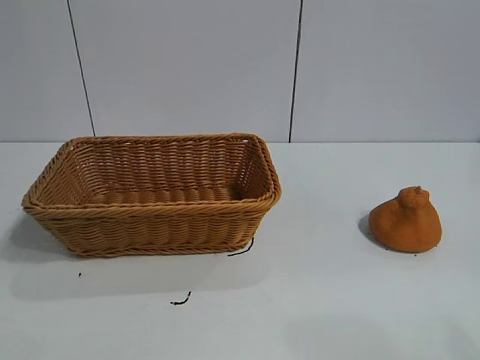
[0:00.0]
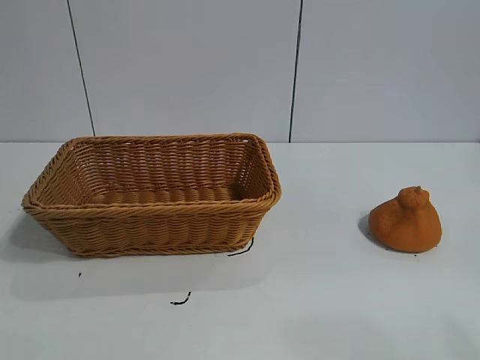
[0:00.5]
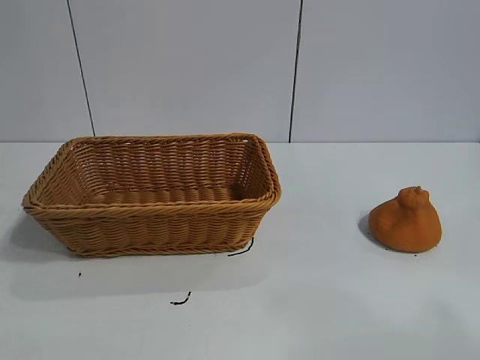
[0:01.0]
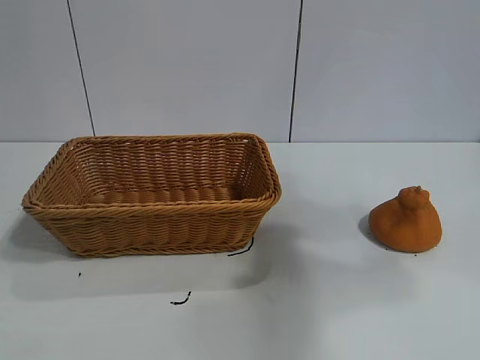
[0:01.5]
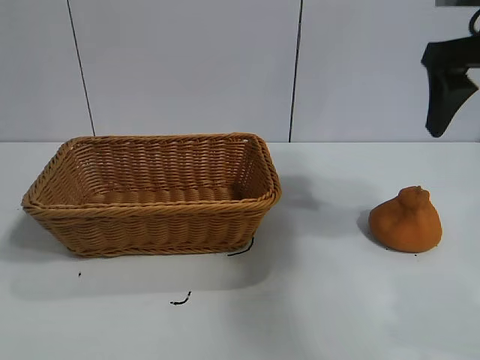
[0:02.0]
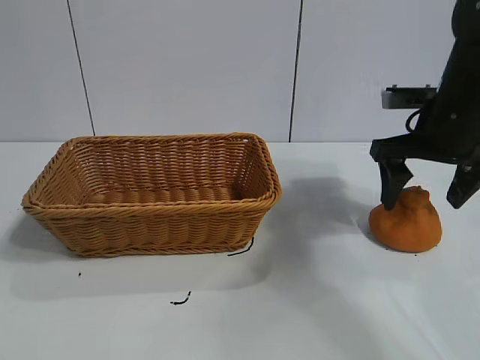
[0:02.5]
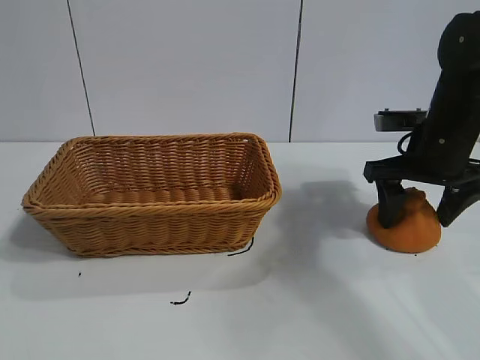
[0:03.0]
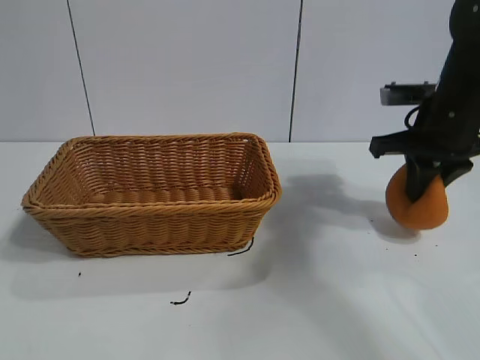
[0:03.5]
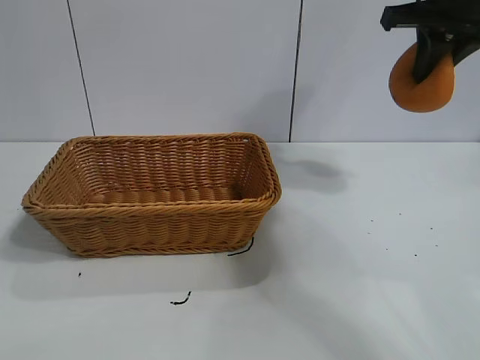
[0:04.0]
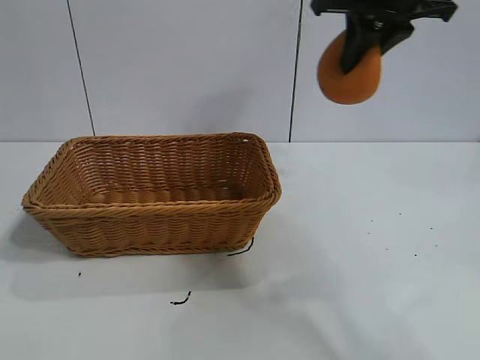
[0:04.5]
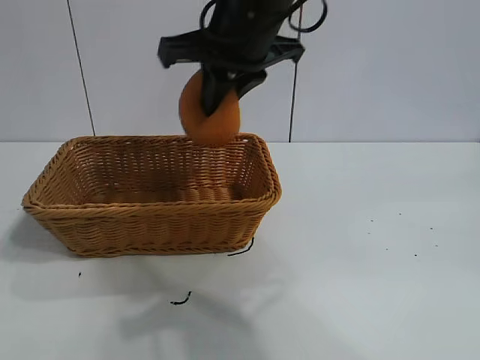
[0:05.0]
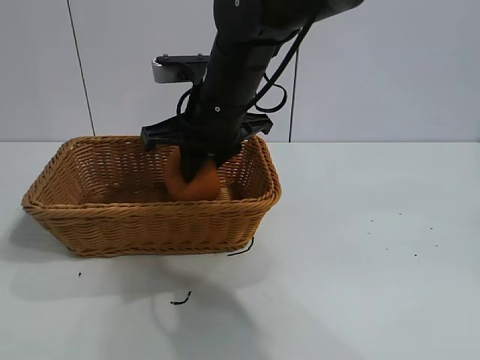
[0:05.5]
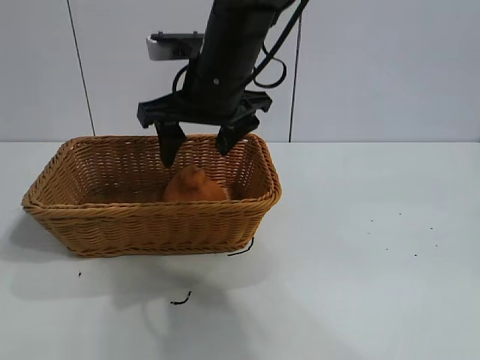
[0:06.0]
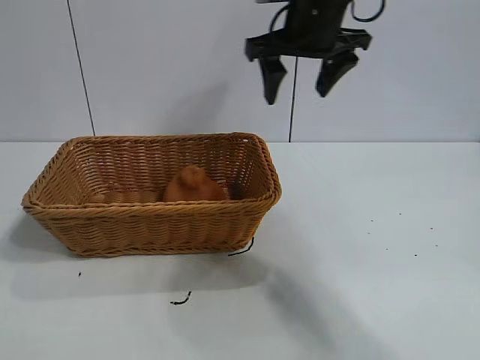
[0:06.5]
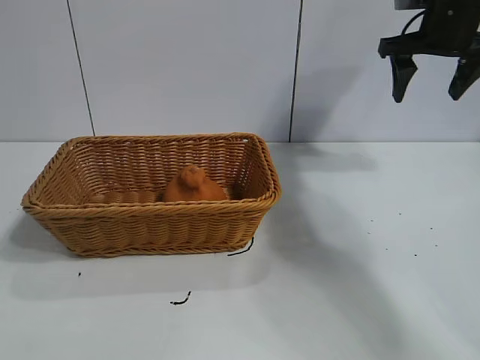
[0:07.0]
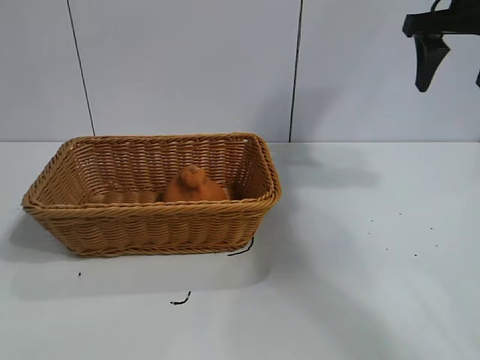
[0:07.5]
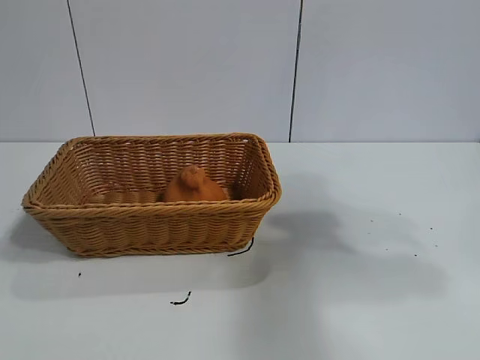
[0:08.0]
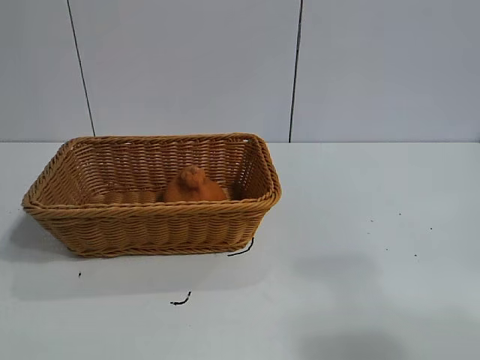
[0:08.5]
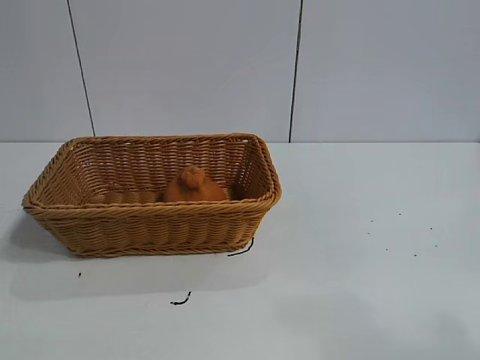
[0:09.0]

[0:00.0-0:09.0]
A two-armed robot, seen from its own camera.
Task of the whole recording: pick up the orange and put it into the basket.
Step, 0:01.0 to 0:03.0: Grasp the orange with right gripper.
Step, 0:04.0 to 0:05.5: Place the orange in the basket with right gripper.

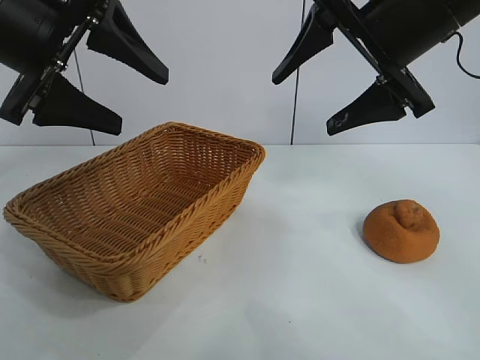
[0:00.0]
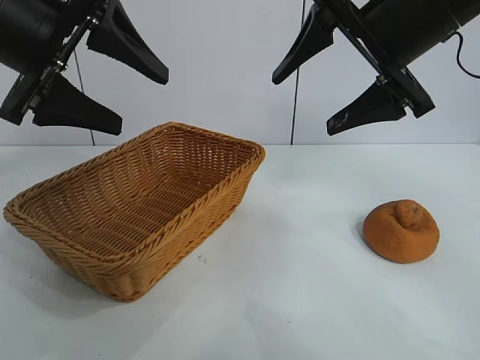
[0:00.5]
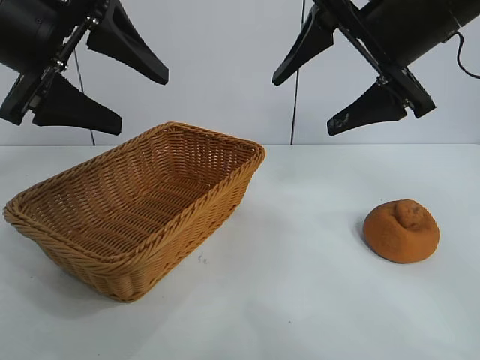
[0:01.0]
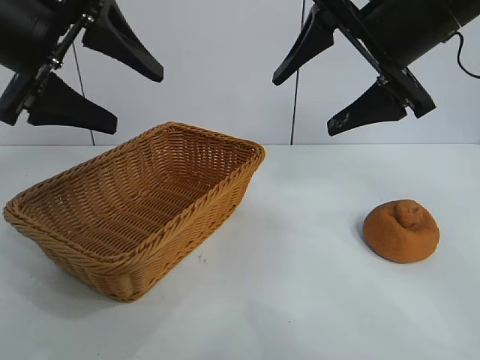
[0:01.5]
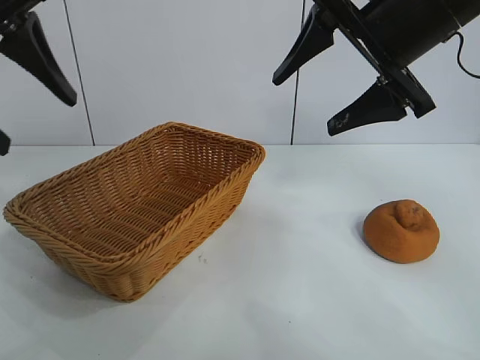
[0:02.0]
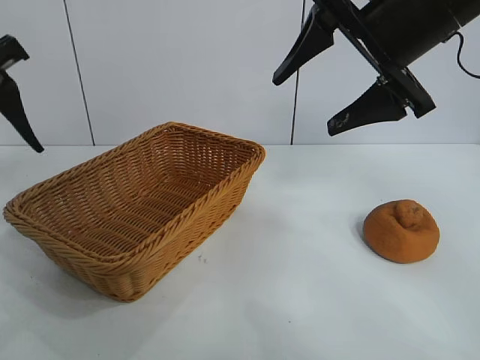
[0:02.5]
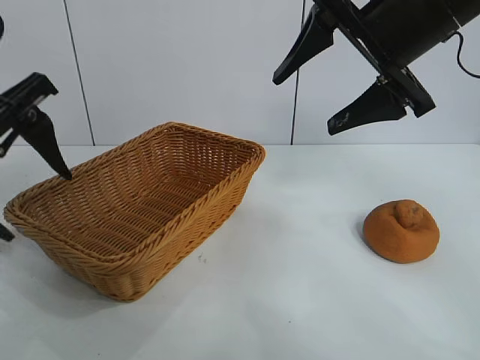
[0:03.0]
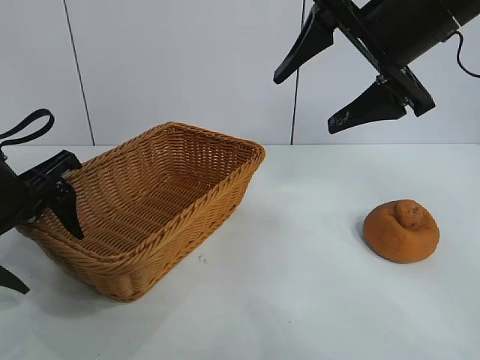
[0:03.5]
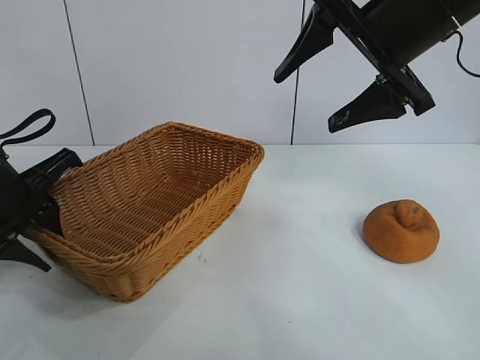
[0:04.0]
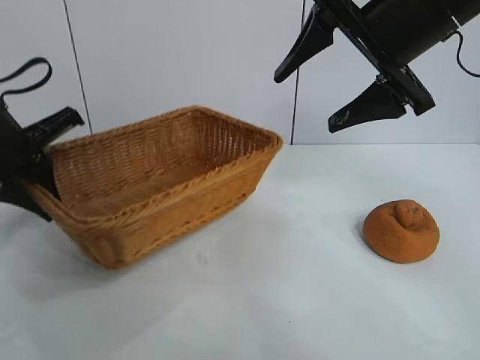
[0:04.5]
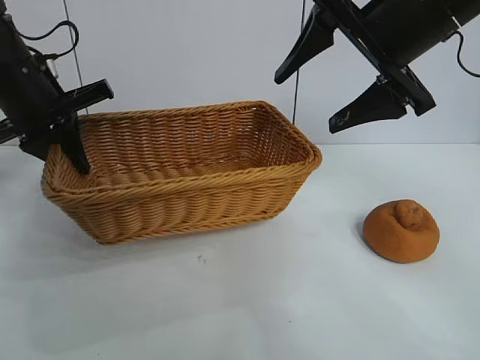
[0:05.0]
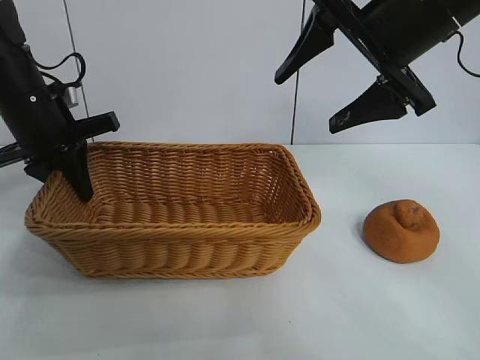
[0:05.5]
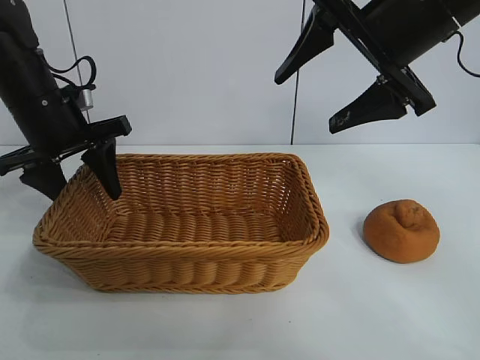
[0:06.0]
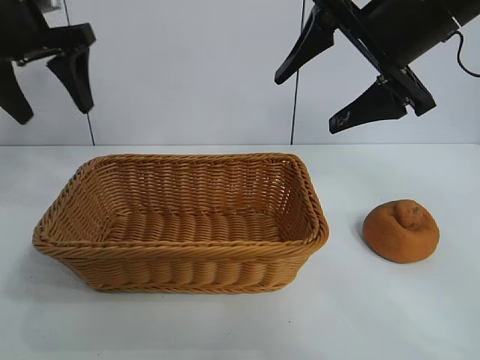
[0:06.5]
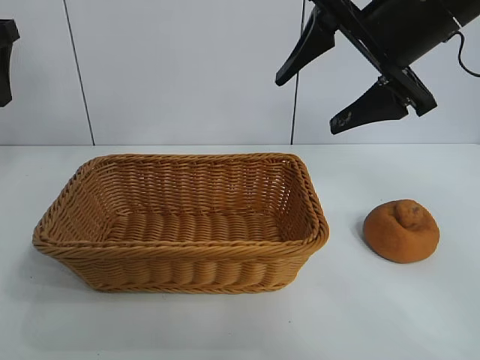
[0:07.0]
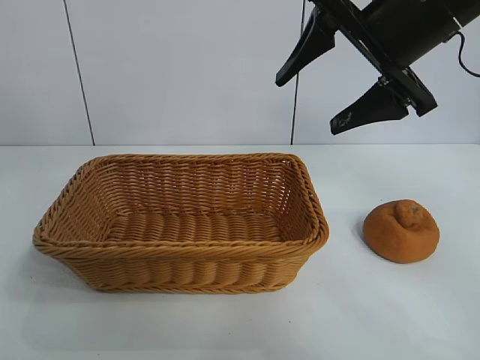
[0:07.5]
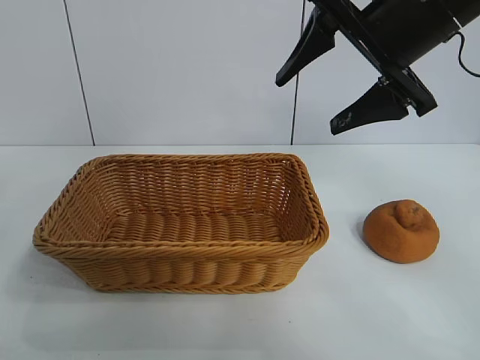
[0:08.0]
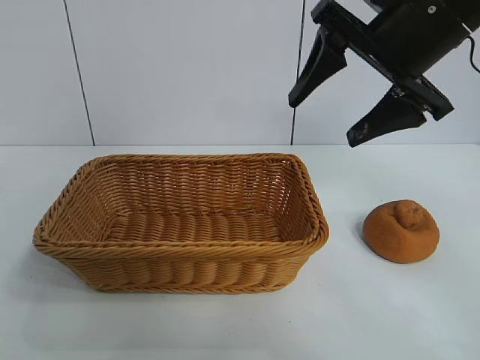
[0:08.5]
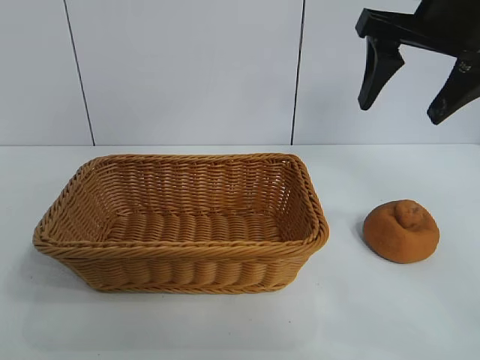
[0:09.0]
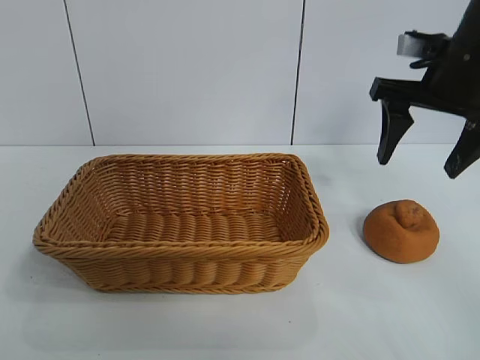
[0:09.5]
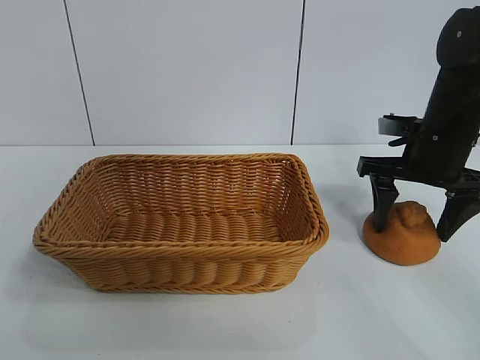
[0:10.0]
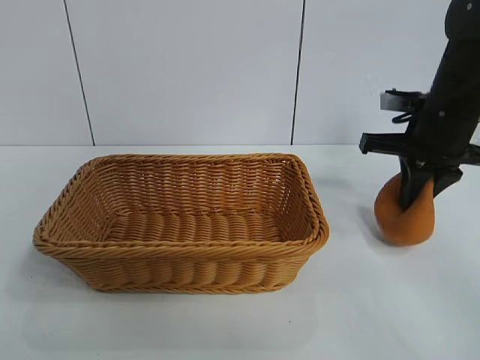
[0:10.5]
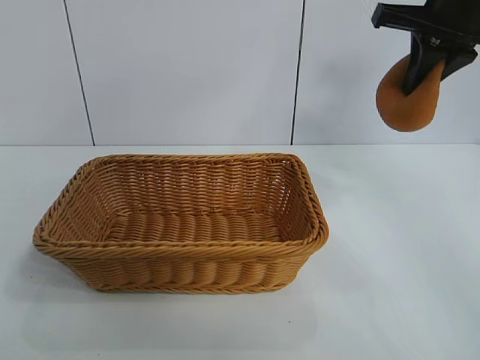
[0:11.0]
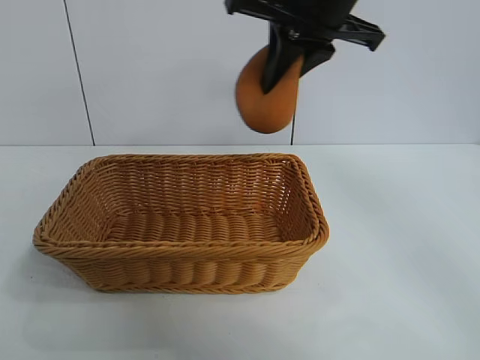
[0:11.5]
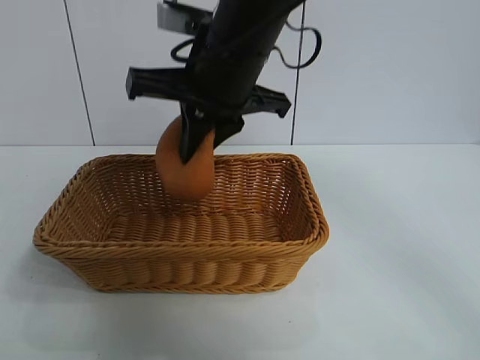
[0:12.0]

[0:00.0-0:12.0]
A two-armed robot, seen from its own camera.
Task of the whole recording: pick up the orange and put it into the basket.
Step, 0:01.5 to 0:04.0: Grasp the basket with left gripper.
Step, 0:04.5 to 0:05.5: Place the basket in the center of view with left gripper.
Step, 0:06.5 to 0:10.0: Grasp the orange with right gripper.

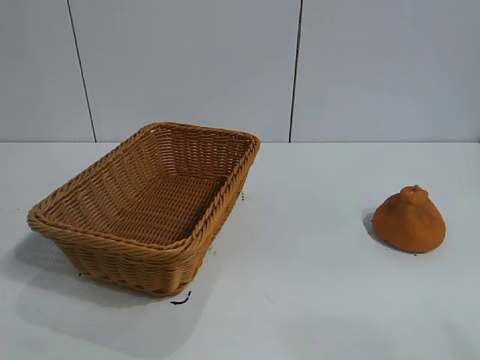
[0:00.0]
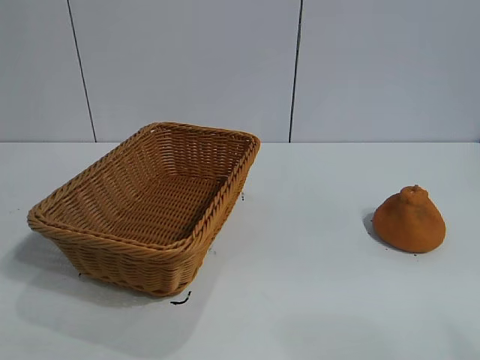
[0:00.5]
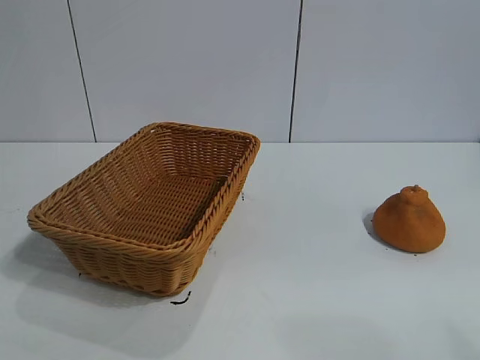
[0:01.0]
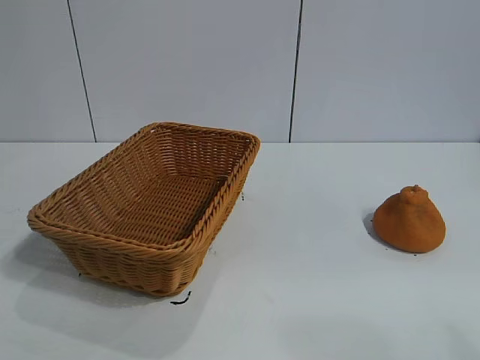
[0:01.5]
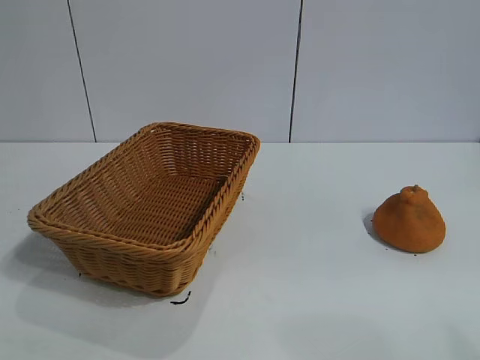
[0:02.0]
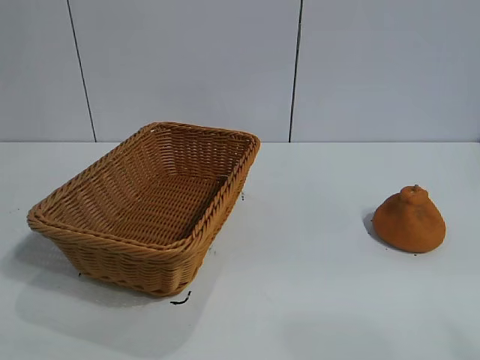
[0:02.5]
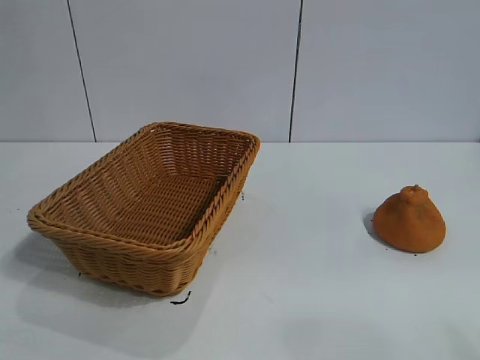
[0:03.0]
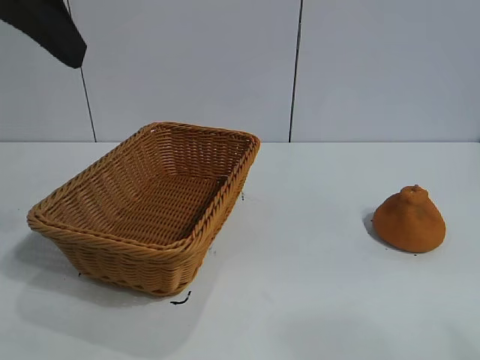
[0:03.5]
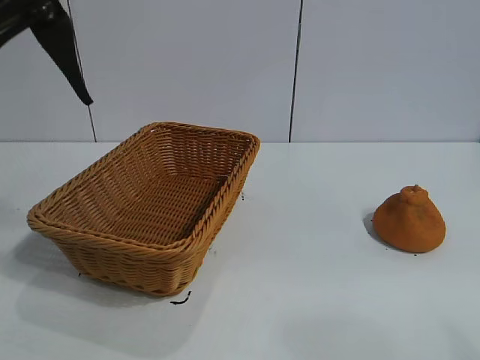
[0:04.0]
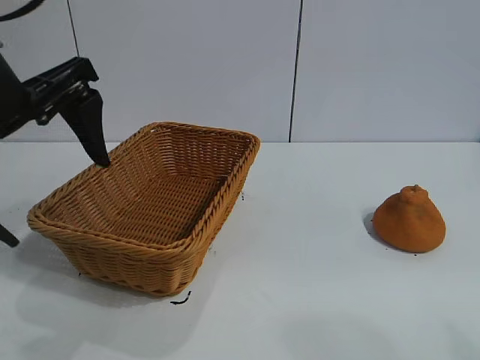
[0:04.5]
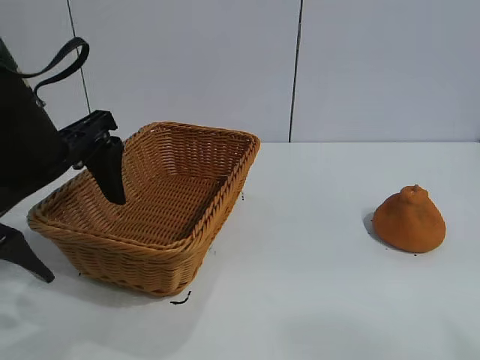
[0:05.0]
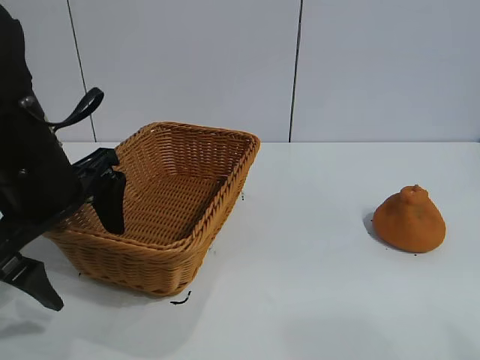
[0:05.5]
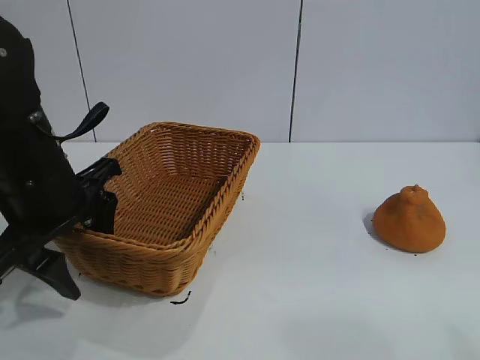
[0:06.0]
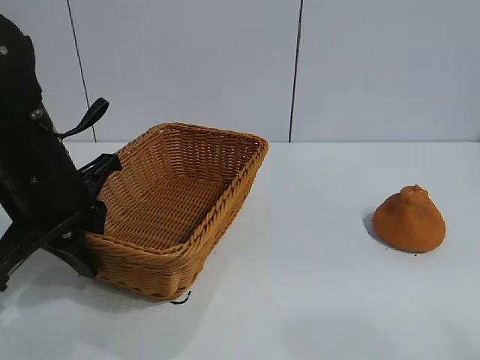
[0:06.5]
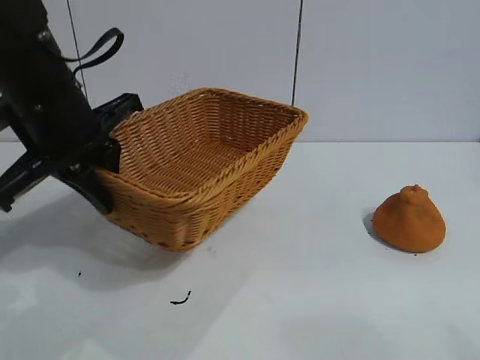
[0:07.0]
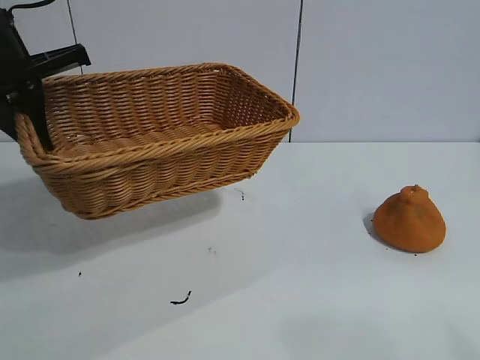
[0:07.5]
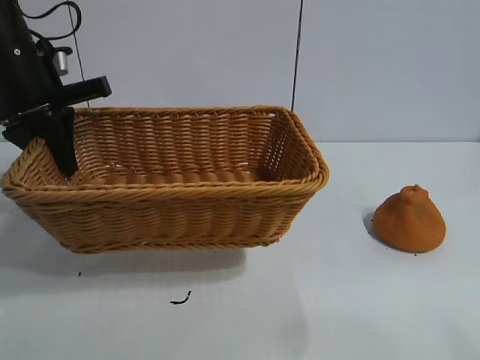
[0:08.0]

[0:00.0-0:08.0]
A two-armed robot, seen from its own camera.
Task of the whole recording: pick up the orange and put it into the basket.
Step, 0:02.0 to 0:06.0: Grasp the basket with left gripper.
